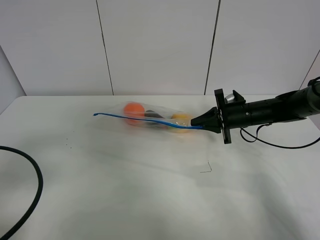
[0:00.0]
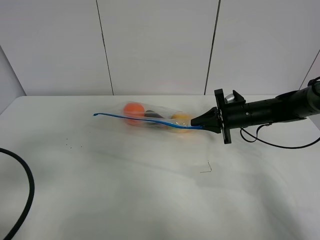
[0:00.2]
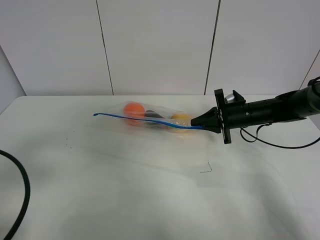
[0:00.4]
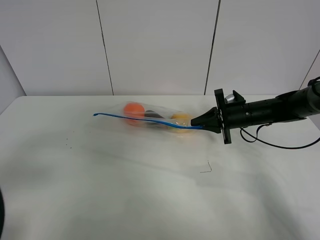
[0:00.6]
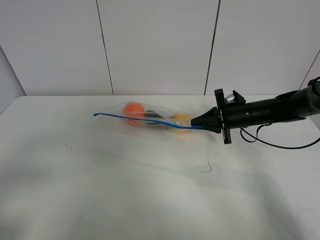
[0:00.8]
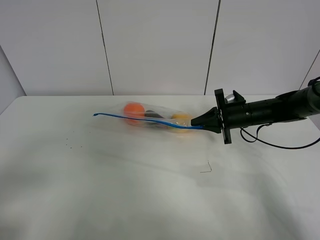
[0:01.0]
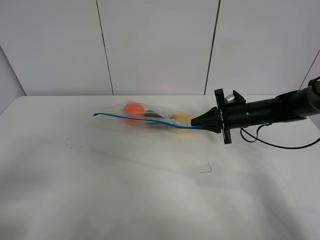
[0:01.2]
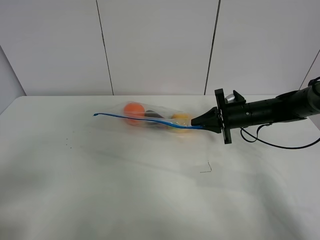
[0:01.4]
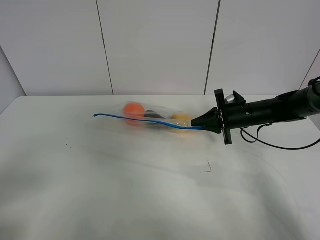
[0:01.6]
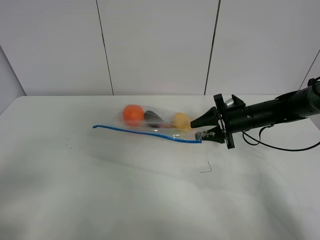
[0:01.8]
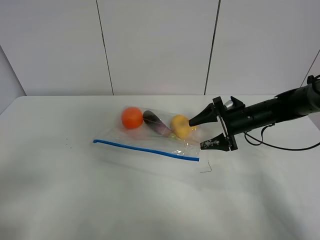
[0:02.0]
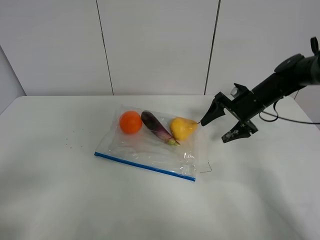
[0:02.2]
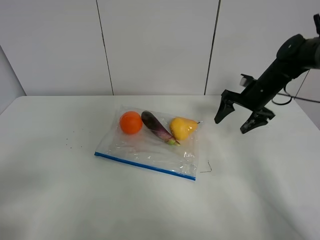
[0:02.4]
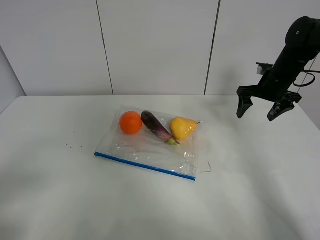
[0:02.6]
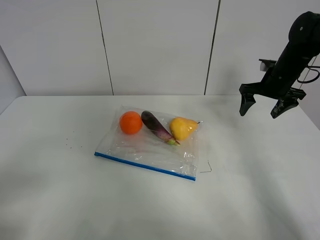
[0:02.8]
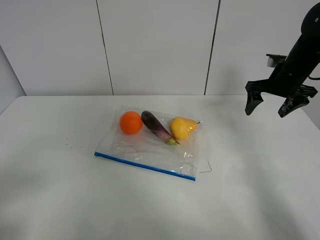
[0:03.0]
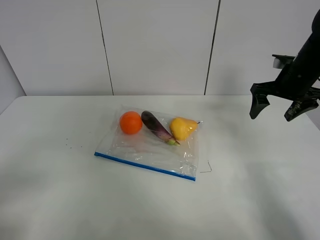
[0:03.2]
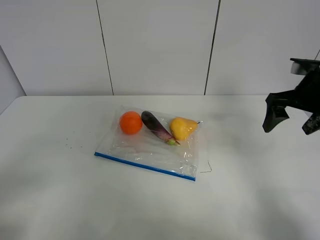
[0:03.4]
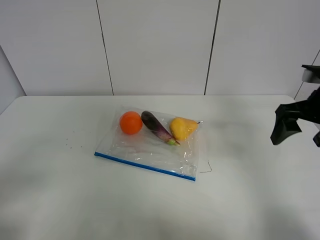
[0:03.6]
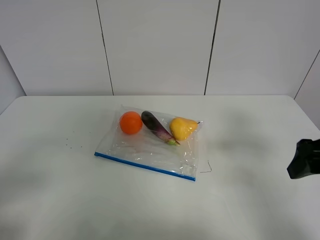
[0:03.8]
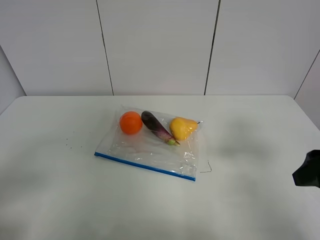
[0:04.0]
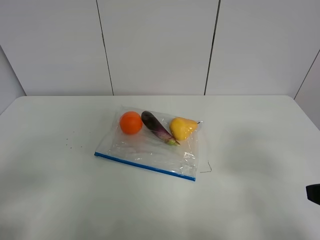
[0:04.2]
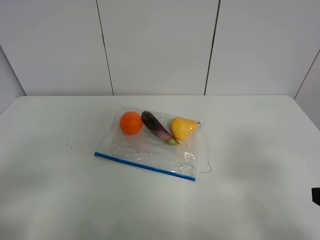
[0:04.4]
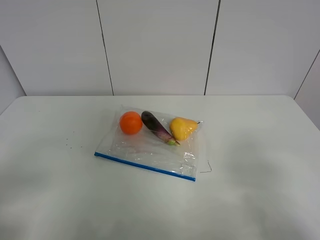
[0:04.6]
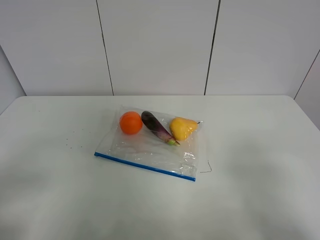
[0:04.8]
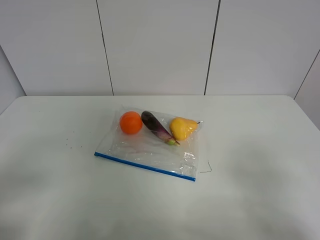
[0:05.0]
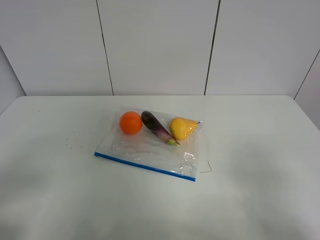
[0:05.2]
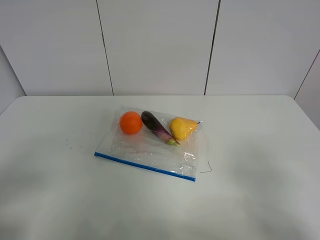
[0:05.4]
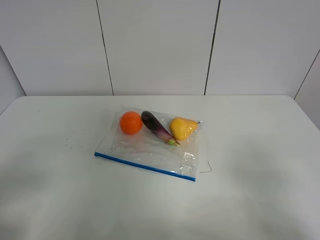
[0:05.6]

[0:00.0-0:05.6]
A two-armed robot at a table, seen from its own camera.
Step, 0.0 to 2.0 s: Place the fruit bag with right gripper.
0.0 to 1.4 s: The left gripper goes roughly 10 cm backward.
1.4 to 2.8 s: The right gripper goes about 10 cm upward and to the right, and opens up.
2.8 to 4.2 s: The right gripper goes roughly 35 cm backward.

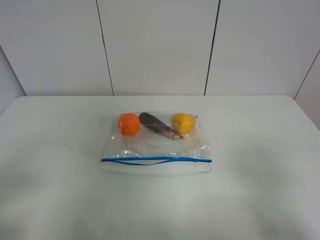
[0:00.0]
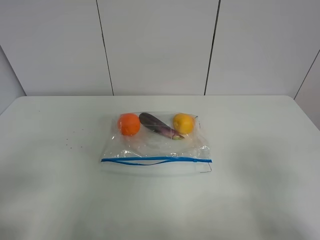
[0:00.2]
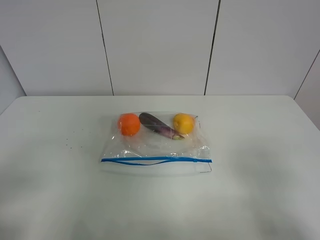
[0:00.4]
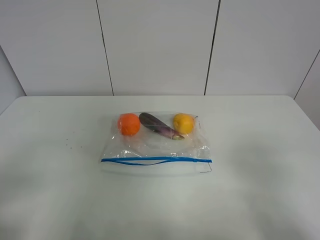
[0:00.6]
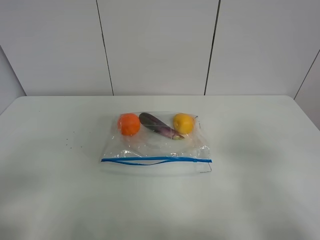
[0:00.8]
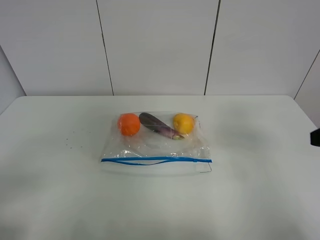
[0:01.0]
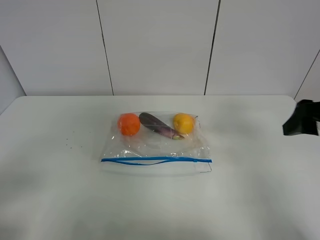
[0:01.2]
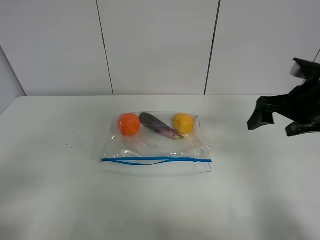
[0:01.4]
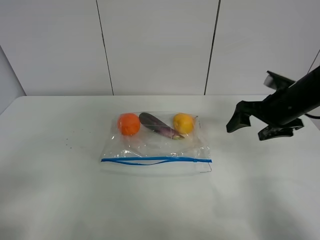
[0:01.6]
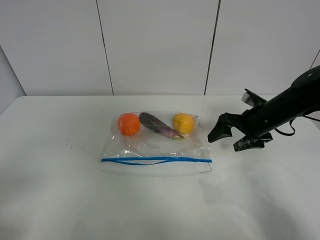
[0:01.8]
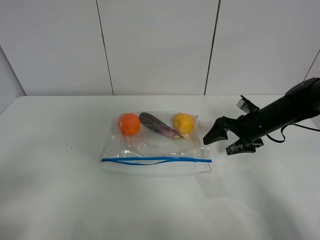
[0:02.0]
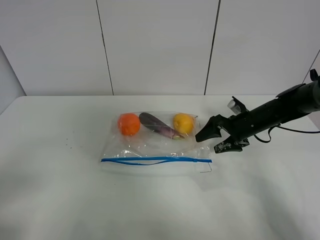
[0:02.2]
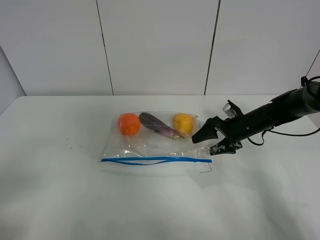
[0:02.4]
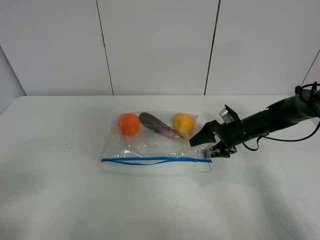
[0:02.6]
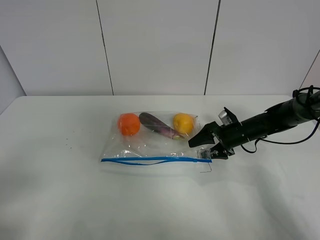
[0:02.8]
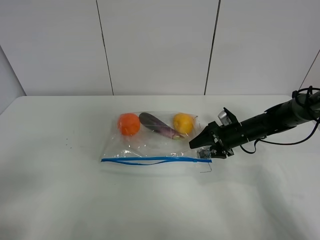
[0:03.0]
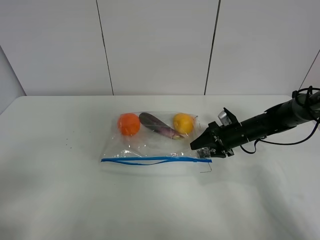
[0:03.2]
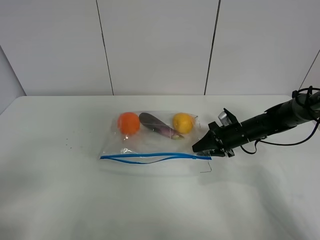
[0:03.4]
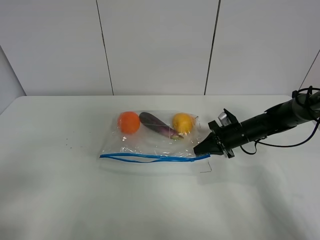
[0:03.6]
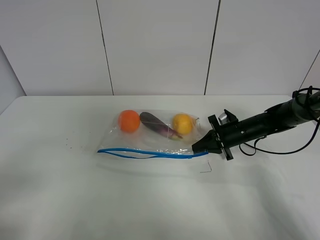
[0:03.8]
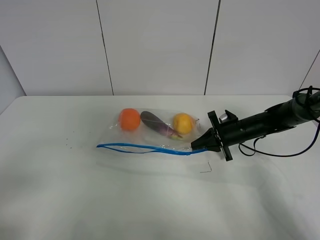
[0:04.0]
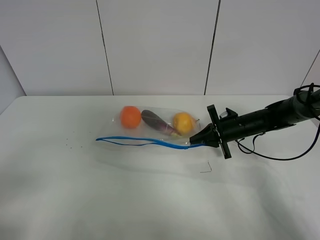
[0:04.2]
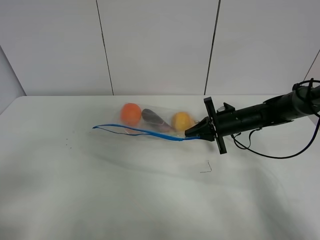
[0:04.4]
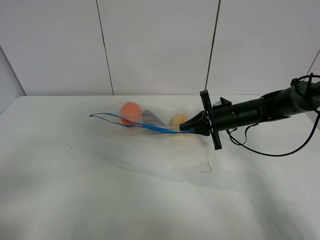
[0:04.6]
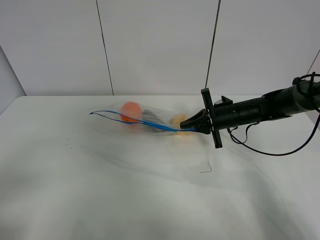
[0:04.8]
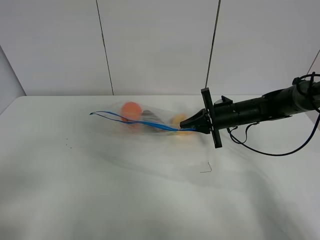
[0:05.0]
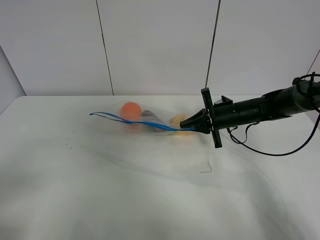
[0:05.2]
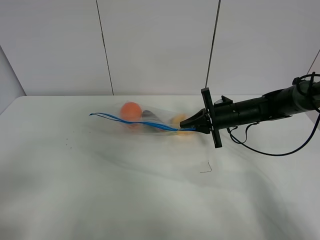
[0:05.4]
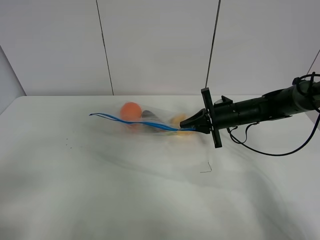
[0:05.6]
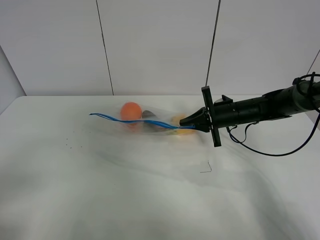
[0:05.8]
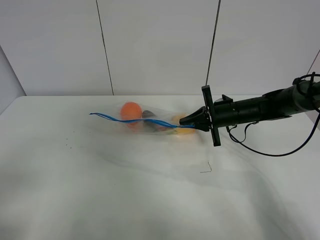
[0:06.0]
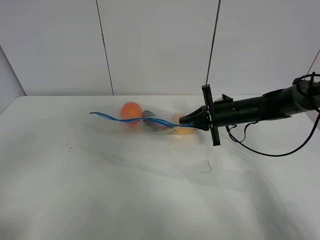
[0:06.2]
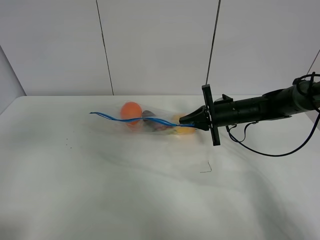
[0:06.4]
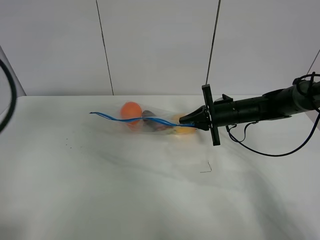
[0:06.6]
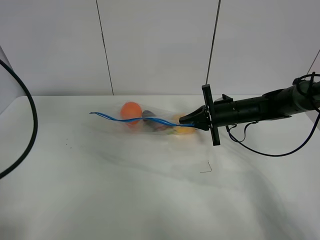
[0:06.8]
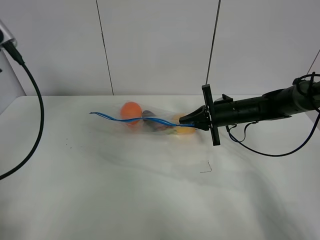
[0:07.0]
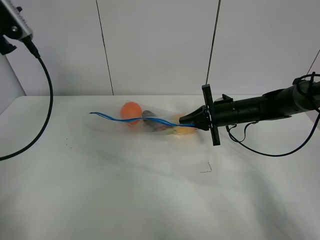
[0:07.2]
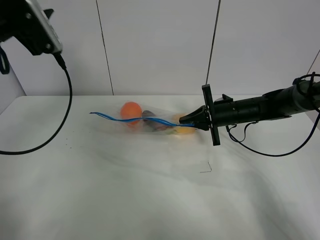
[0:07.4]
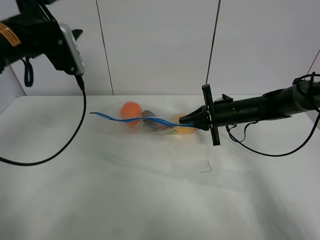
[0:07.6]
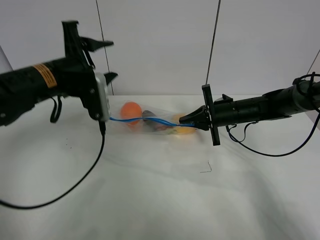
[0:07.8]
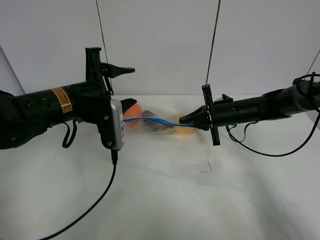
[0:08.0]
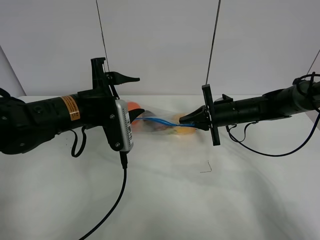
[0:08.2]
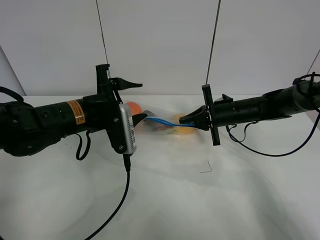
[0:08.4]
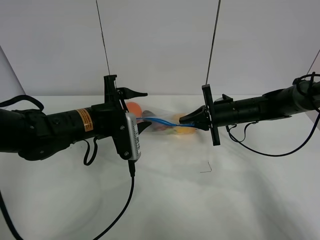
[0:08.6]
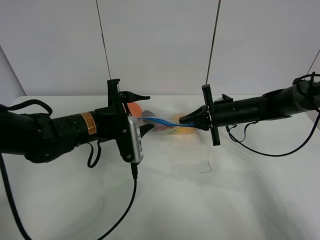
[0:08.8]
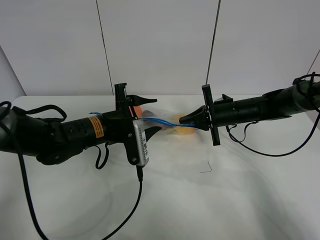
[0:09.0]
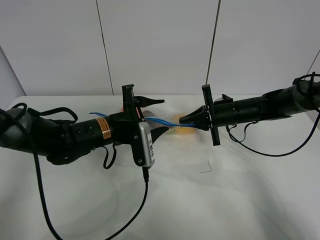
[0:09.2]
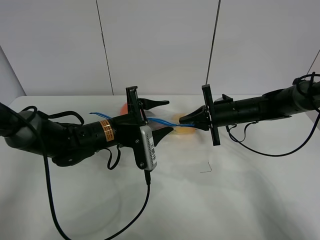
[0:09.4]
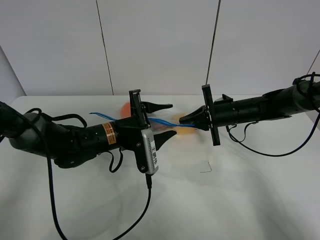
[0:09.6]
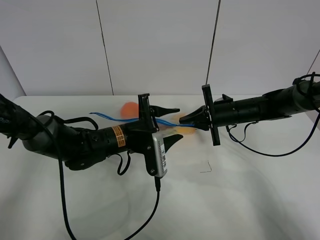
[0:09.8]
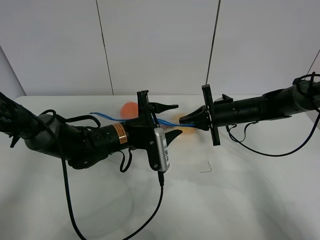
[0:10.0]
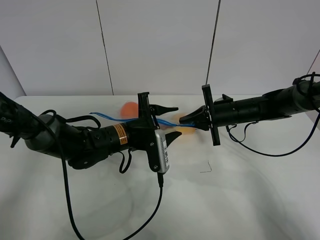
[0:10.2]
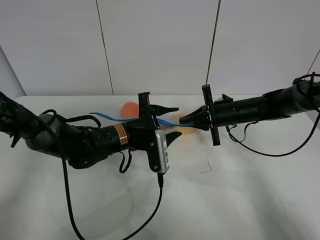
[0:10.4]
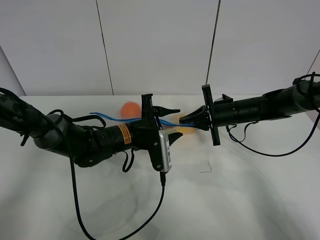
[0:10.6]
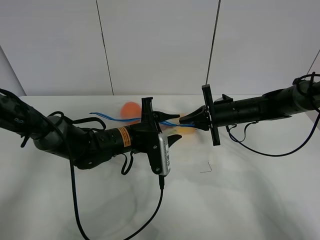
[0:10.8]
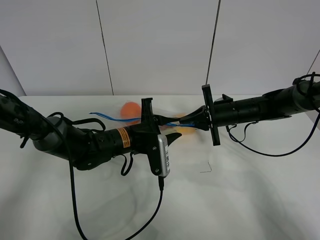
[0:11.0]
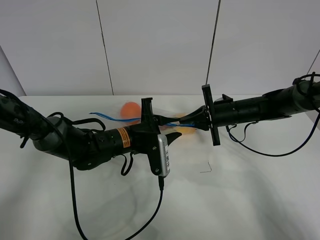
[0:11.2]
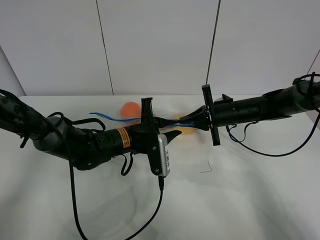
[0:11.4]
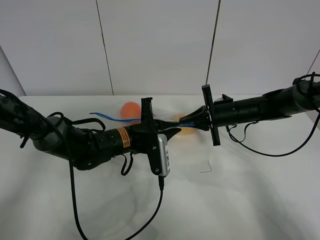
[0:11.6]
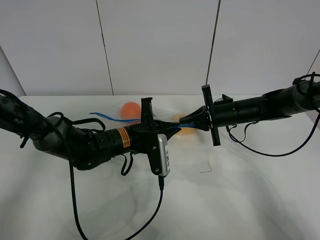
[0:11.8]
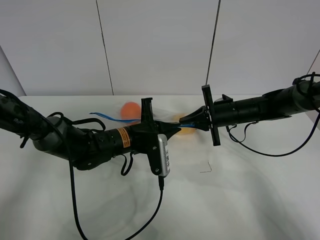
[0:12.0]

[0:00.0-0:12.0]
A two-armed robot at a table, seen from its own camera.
Step, 0.0 to 3.6 s: Grasp the fruit bag with right gripper.
Step, 3.8 to 4.8 s: Lift the fruit bag with your right gripper.
0.0 to 1.6 s: The right gripper is displaced forward by about 30 cm.
1.6 to 3.0 s: The right gripper is displaced downward and forward by roughly 15 cm.
3.0 to 4.4 s: The right gripper closes up.
4.4 to 6.0 s: The grippers make only small movements.
6.0 to 7.6 s: The left gripper shifts about 30 cm forward.
7.6 to 9.0 s: The left gripper shifts roughly 20 cm downward and to the right.
9.0 to 10.4 s: There are only small adjustments of the grippers.
10.4 to 12.0 s: The left gripper closes.

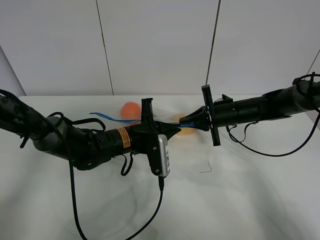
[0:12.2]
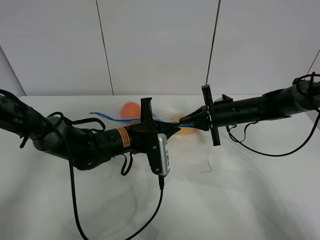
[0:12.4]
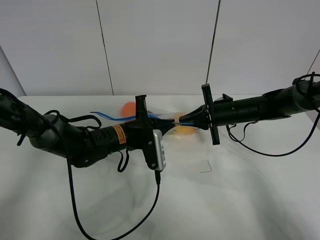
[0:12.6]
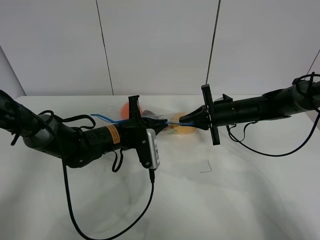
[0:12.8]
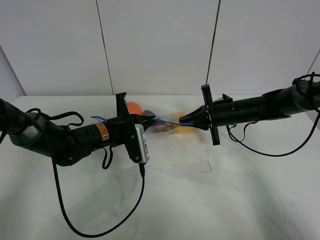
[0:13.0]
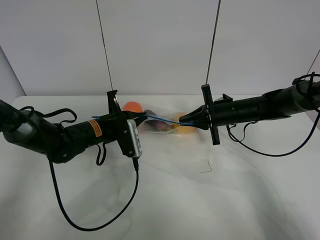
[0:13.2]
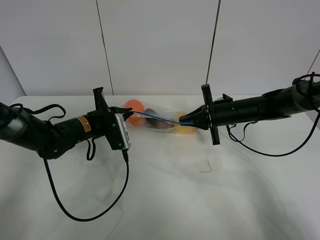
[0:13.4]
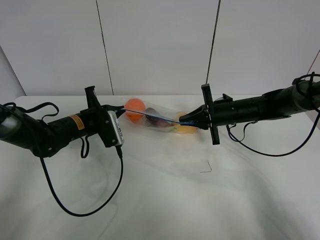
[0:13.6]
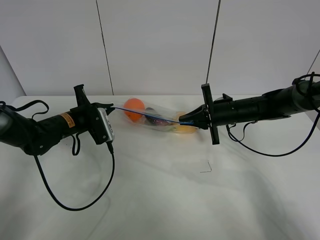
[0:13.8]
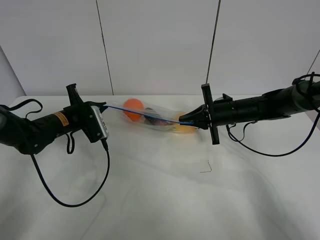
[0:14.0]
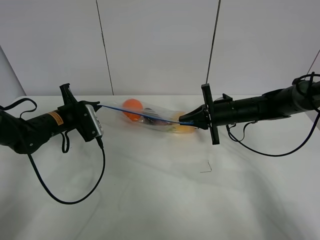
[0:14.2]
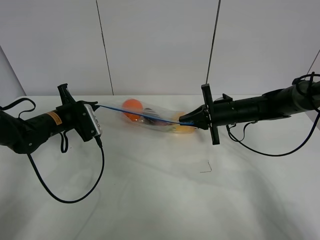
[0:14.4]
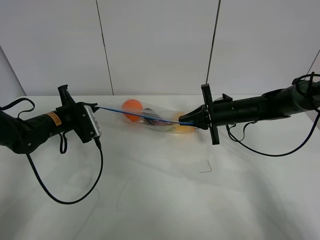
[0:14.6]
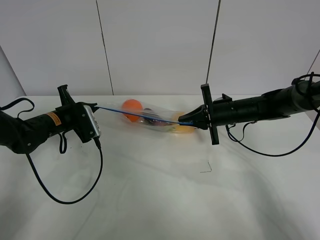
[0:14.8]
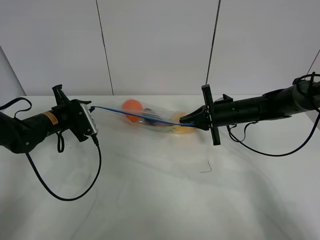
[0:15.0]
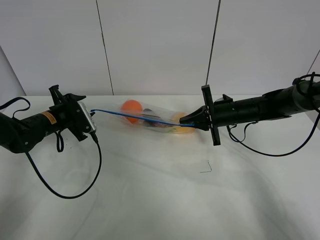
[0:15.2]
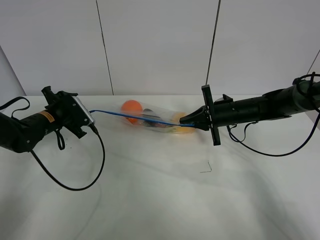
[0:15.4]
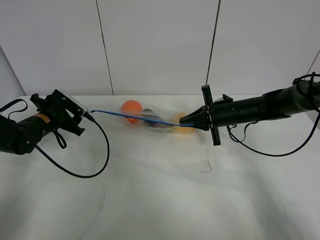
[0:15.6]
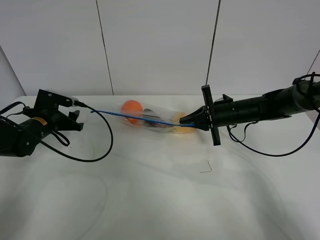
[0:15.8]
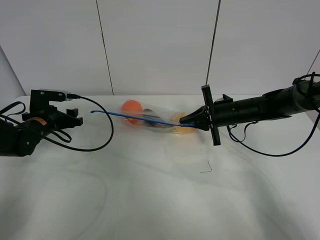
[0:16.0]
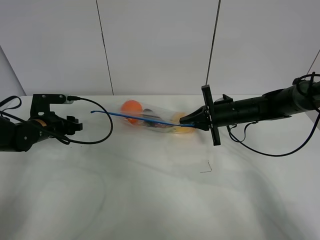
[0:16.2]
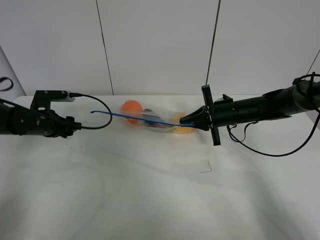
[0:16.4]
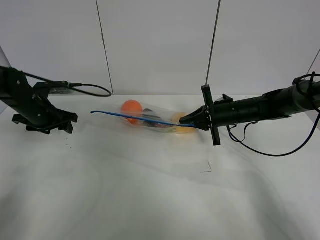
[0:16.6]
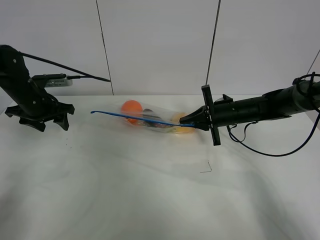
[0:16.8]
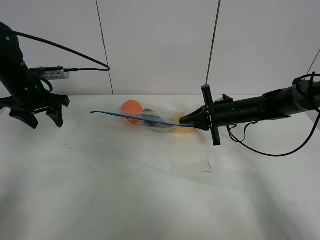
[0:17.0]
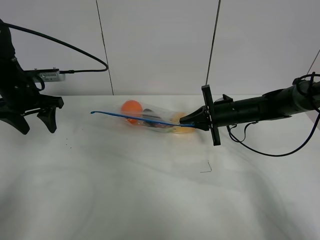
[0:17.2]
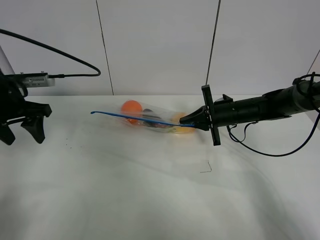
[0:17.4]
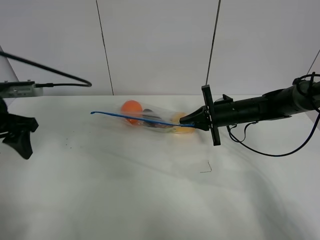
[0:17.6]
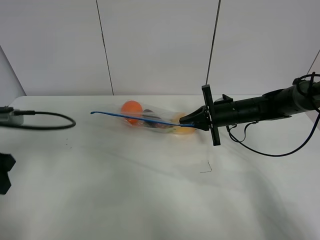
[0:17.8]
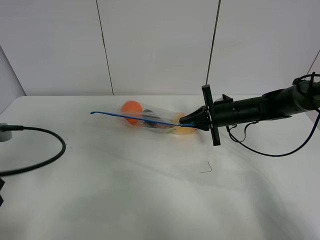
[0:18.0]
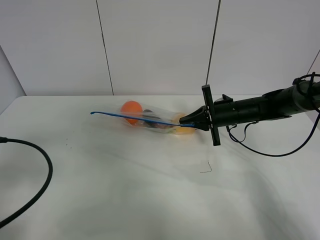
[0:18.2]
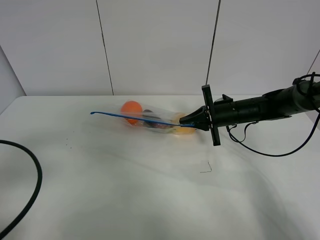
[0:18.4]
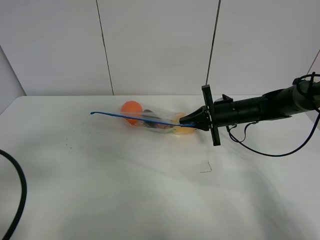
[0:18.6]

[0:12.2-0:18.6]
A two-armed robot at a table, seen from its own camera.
Step, 12.2 to 15.4 s: Pull the fruit bag with left gripper.
12.2 to 13.8 s: The left gripper travels to the left by approximately 15 cm.
13.8 to 15.4 s: The left gripper is displaced to the left by about 5 cm, and opens.
15.4 to 17.0 s: The left gripper is displaced upward by roughly 10 cm.
17.0 to 18.6 s: The left gripper goes roughly 30 cm backward.
